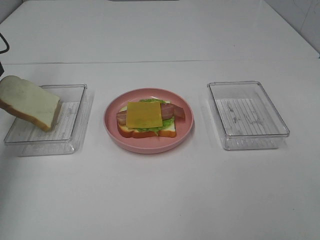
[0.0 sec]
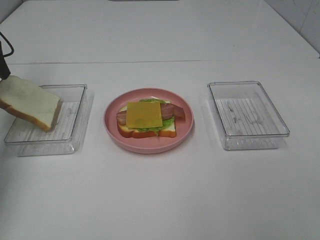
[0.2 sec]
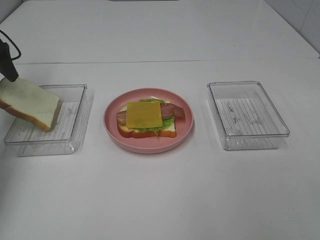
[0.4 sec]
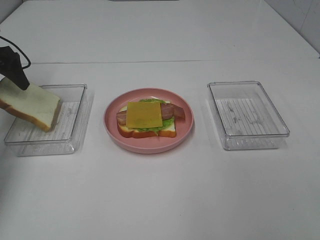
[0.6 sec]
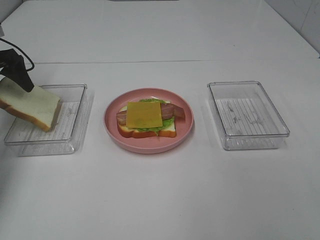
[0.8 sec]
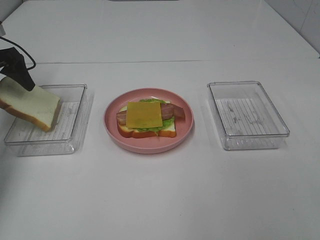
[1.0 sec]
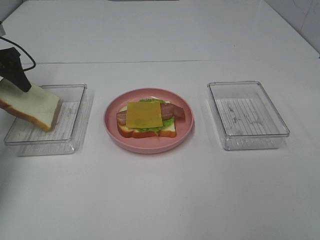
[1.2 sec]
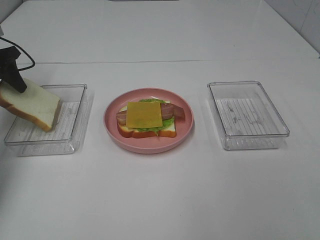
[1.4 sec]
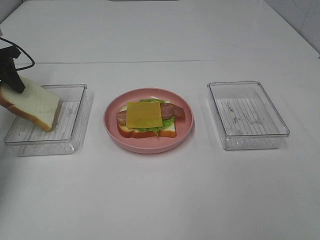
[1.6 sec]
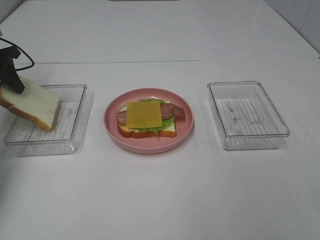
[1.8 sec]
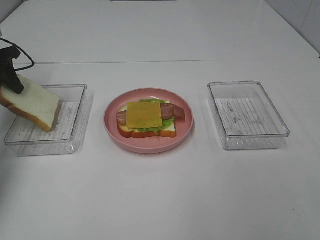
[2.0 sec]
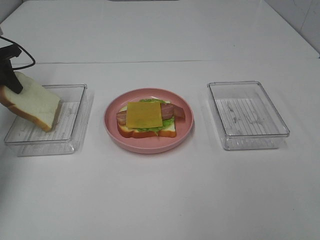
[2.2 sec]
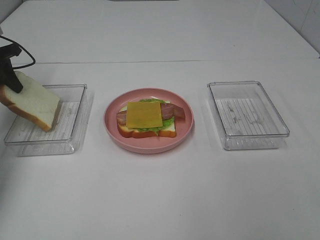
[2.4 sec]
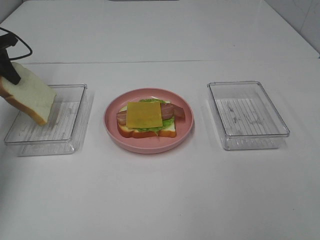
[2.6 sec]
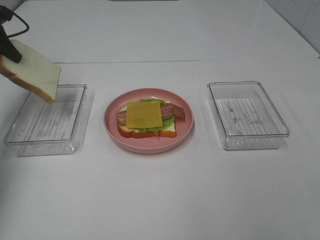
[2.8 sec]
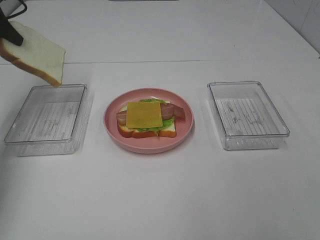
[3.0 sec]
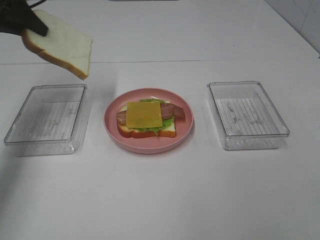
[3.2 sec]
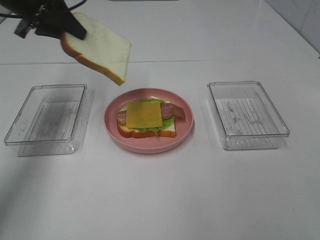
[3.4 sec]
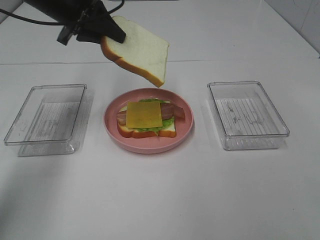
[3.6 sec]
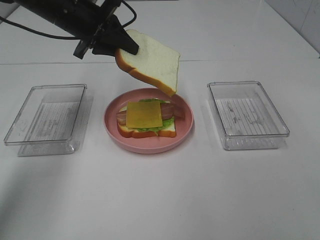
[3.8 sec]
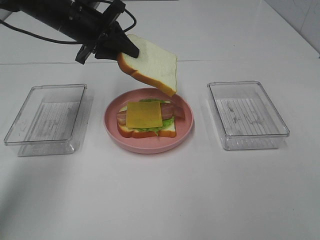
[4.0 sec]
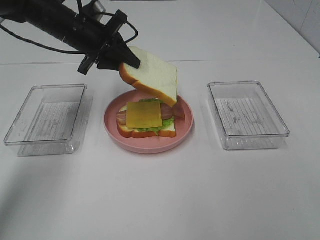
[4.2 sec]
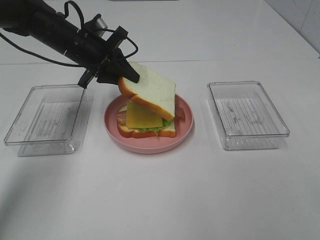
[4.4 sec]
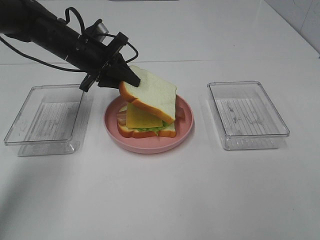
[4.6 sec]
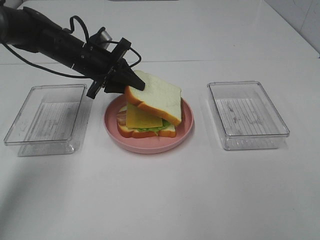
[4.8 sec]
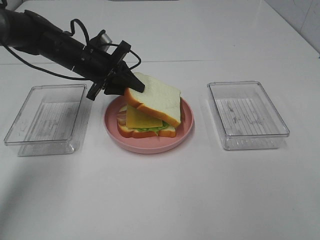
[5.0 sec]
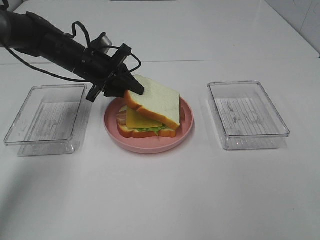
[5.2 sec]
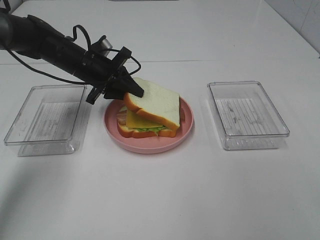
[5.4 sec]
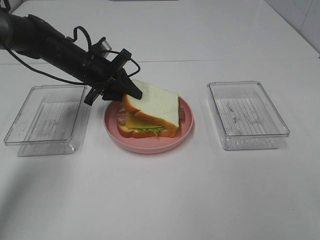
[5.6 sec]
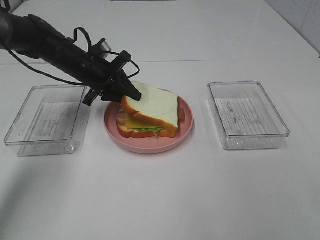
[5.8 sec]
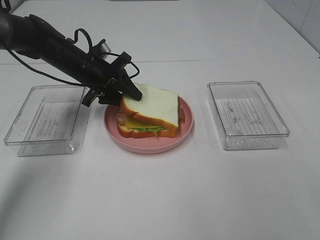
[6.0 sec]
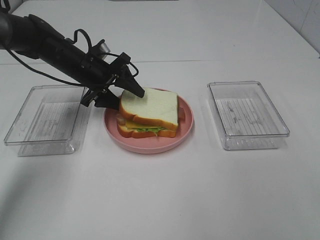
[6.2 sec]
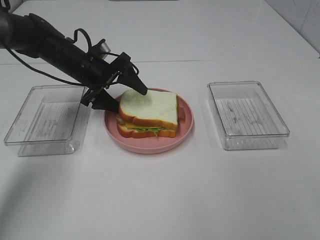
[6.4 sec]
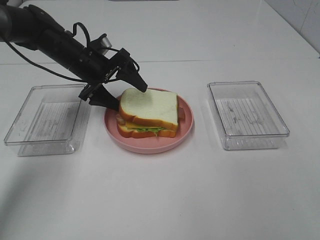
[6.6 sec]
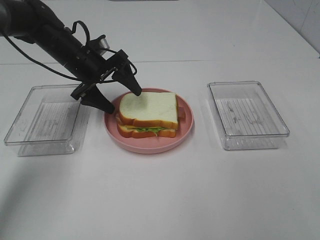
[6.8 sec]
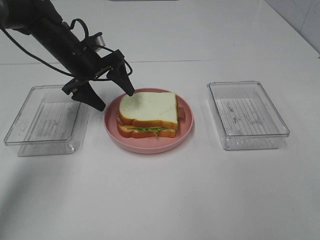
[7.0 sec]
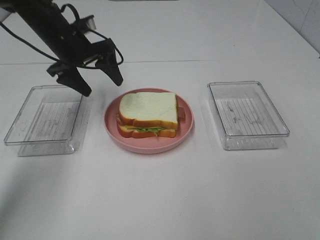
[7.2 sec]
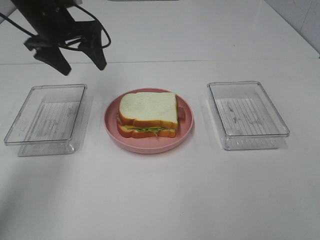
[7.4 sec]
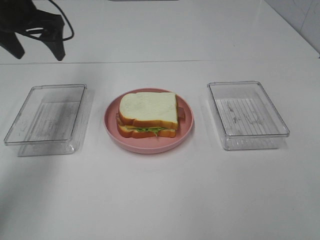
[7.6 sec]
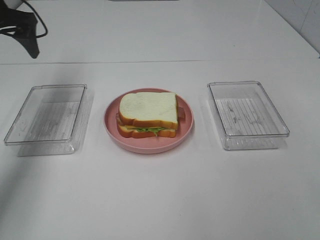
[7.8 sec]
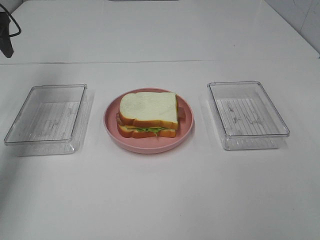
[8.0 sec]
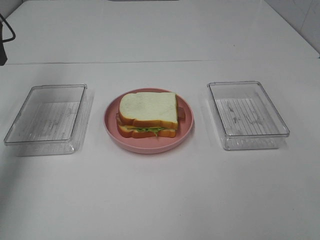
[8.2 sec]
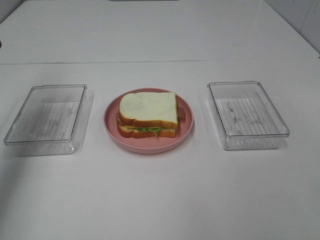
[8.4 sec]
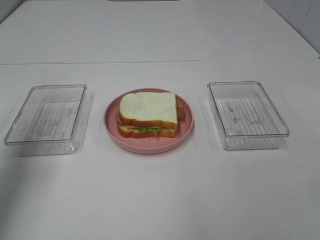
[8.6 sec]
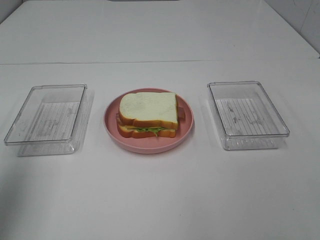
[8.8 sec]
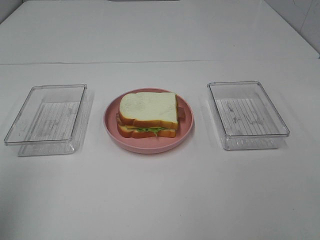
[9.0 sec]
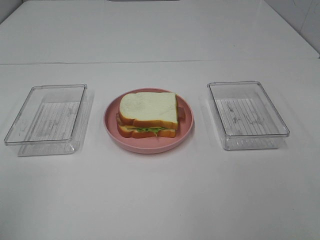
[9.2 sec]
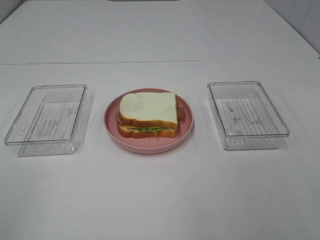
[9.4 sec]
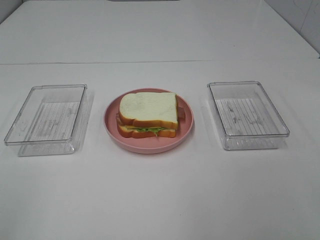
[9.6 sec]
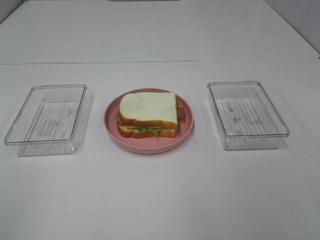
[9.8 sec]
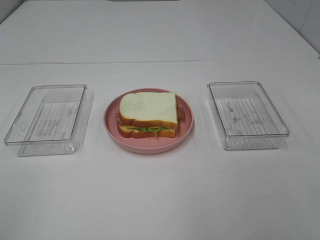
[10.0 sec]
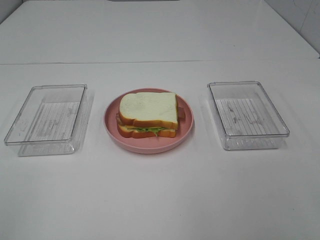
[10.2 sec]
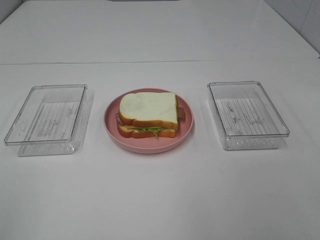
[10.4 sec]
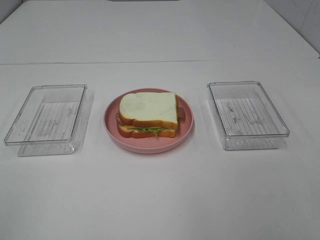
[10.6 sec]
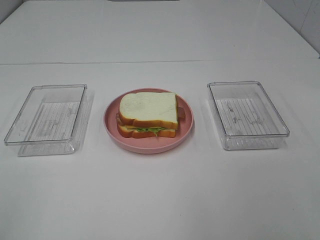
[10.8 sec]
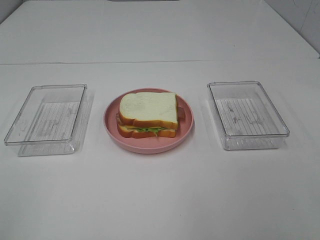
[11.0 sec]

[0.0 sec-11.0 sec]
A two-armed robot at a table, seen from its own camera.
Task of the whole recording: Make sandwiches.
Step, 1.8 sec to 7.0 sec: Left hand:place the bread slice on the cheese slice.
0.0 sec to 1.6 sec: The left gripper heads downward, covering some 10 cm, and closes its fingers.
1.6 sec to 3.2 sec: The left gripper goes about 15 cm upward and to the right.
3.2 sec to 4.8 sec: The left gripper moves to the right and downward, some 20 cm.
4.8 sec to 6.2 sec: The left gripper opens.
6.2 sec to 7.8 sec: The left gripper goes some 20 cm to the left and upward.
7.8 sec to 9.4 sec: The left gripper moves backward, roughly 40 cm.

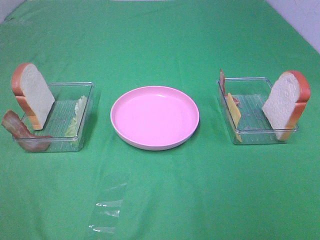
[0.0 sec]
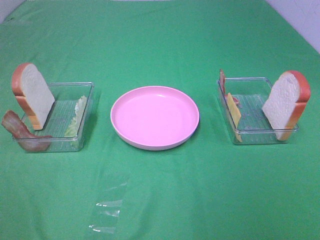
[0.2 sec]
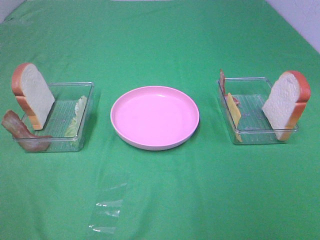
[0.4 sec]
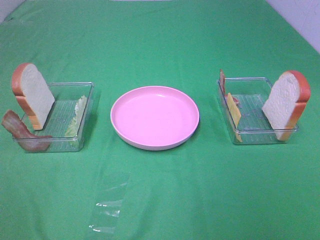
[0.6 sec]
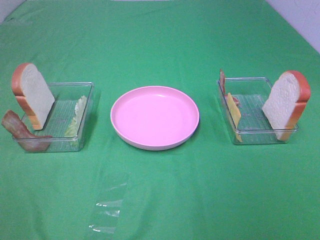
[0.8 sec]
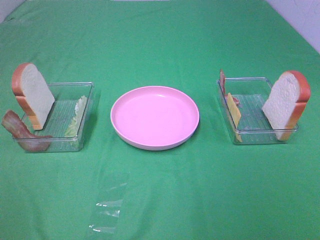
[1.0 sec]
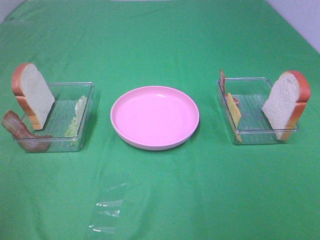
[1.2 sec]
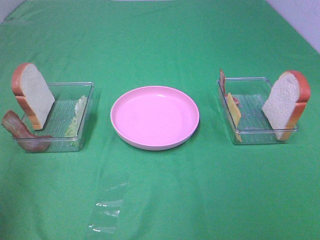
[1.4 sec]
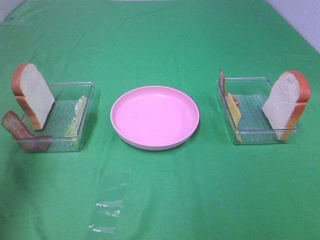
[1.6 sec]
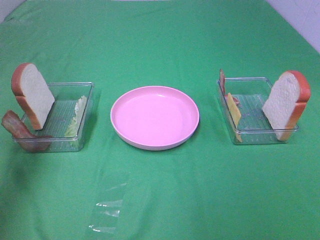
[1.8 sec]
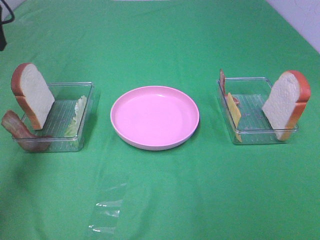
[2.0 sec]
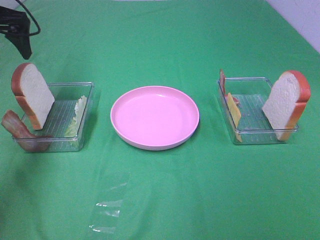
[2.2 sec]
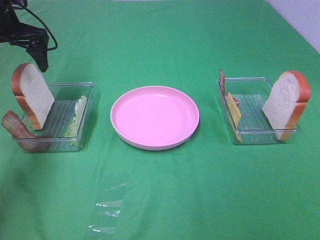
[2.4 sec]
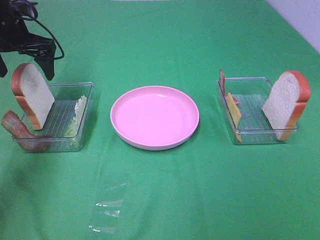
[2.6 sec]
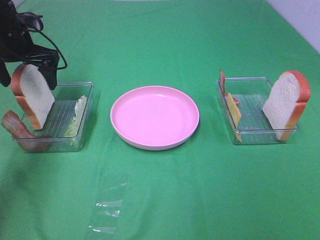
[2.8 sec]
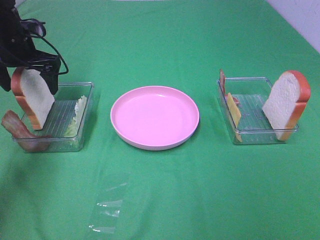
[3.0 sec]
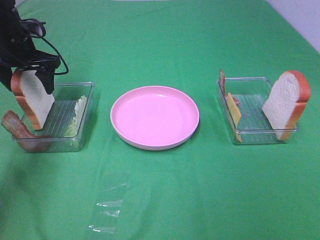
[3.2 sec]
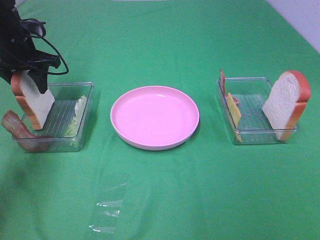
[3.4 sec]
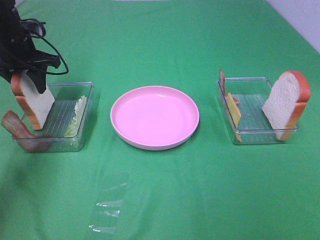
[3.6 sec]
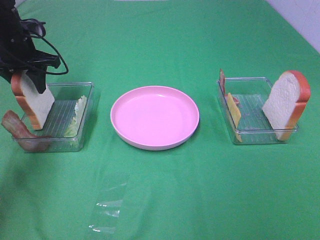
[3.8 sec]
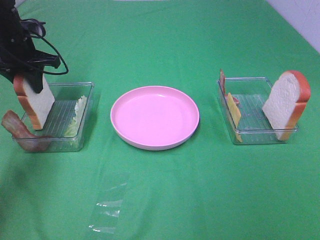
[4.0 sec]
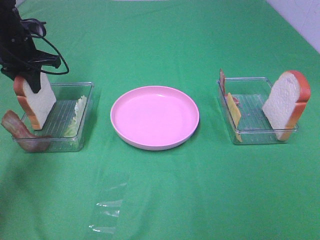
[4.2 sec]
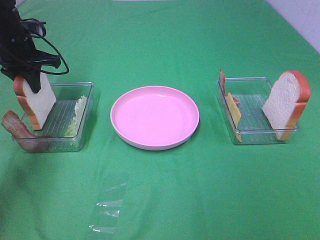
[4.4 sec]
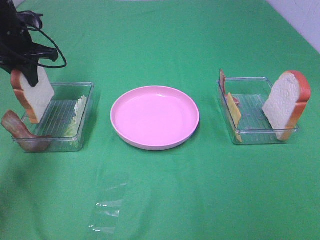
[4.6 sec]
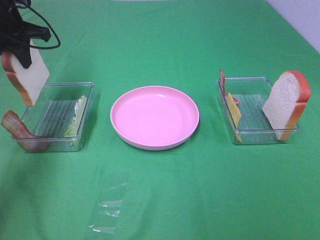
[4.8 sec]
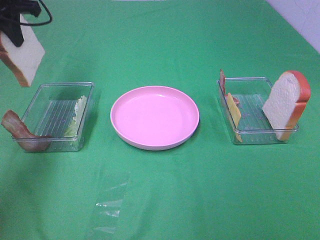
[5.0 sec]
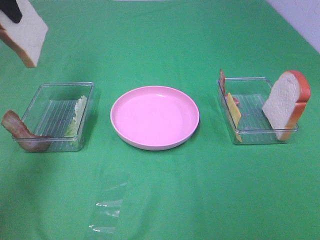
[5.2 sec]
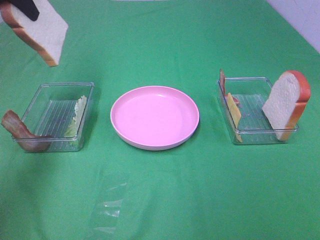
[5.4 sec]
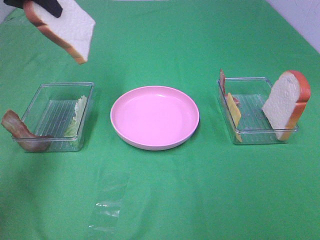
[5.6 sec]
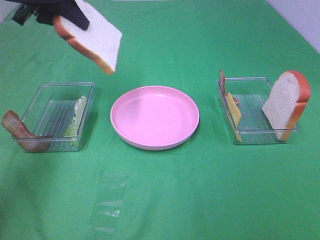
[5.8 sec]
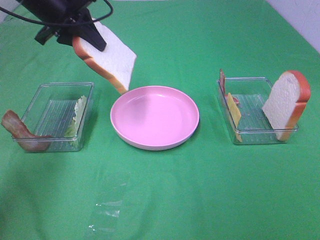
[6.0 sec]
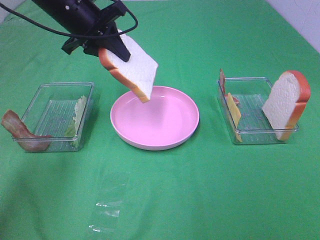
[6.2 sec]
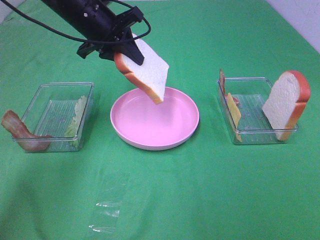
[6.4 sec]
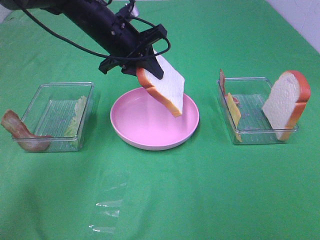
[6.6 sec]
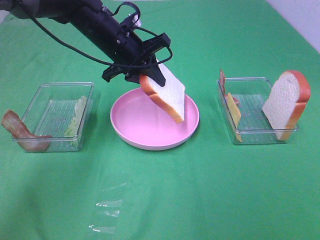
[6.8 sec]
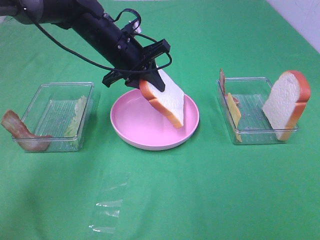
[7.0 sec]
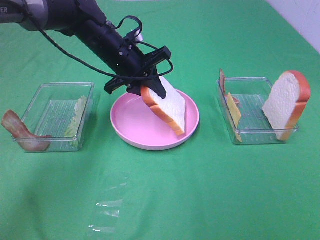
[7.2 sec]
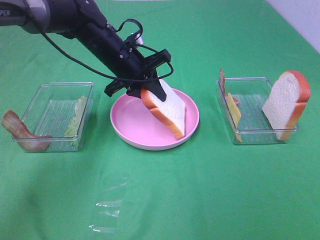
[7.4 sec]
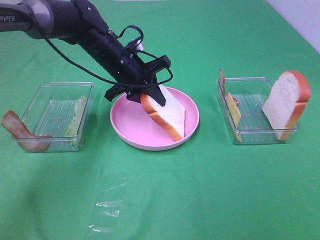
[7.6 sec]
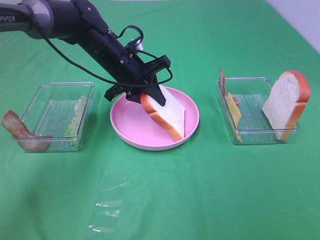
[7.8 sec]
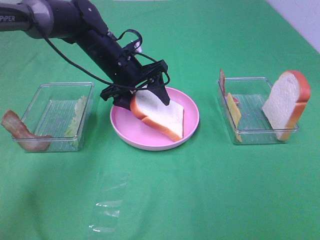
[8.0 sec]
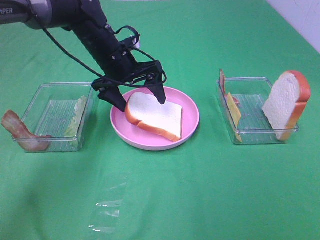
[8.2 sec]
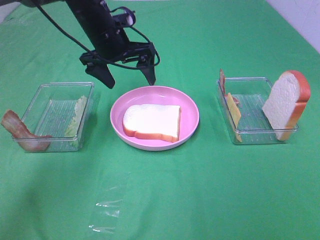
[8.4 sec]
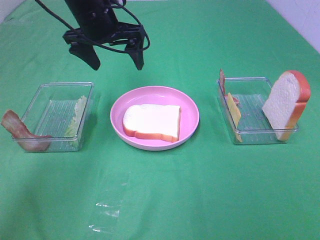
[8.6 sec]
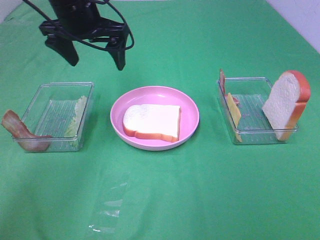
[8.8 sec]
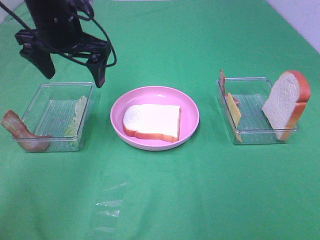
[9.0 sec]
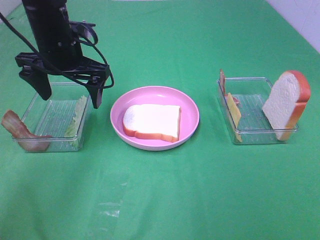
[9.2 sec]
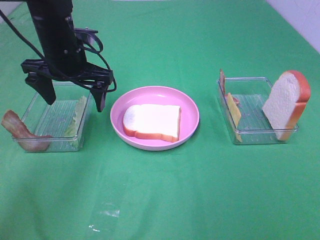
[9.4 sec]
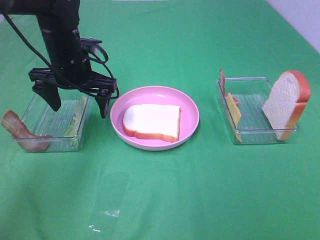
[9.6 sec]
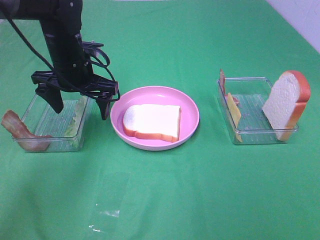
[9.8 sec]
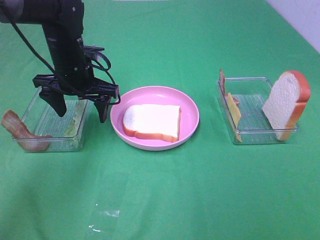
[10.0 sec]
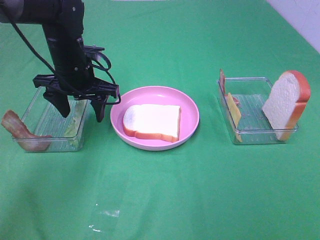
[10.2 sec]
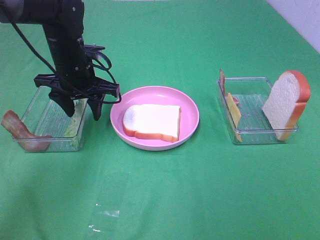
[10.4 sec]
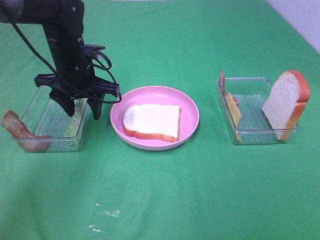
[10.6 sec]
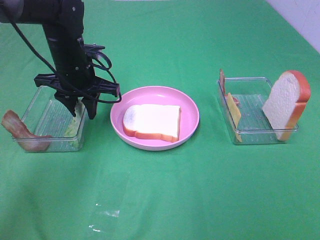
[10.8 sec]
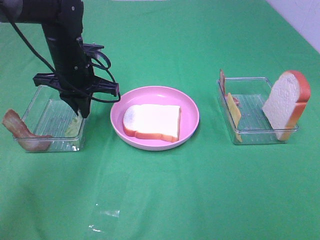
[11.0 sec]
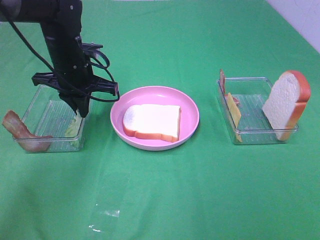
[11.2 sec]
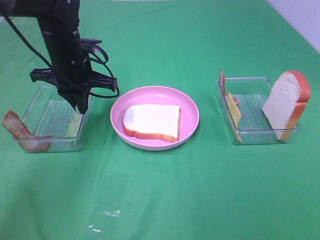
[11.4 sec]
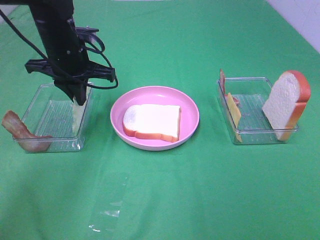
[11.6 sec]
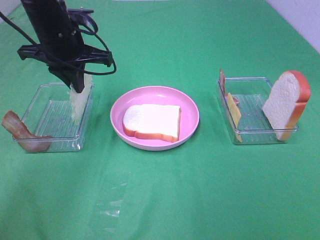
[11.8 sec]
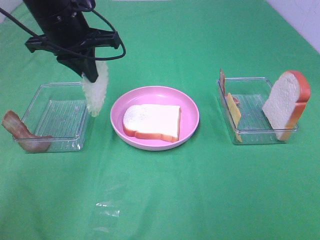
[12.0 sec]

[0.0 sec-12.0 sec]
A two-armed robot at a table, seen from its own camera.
Task of the whole recording: Make sandwiches.
Step, 0.0 sec to 4.2 sec: Left hand:grab the bread slice.
Step, 4.4 sec to 8.2 sec: Left hand:place the bread slice on the plate.
Step, 8.4 sec to 11.2 sec: Left hand:grab the lettuce slice.
0.0 sec to 1.6 sec: The left gripper shifts about 25 cm forward.
1.6 sec to 3.0 sec: The left gripper travels forward and downward by roughly 30 cm.
3.0 sec to 4.4 sec: The left gripper closes.
4.4 sec to 6.0 sec: The left gripper is displaced to the right and upward by approximately 10 cm.
6.0 sec to 7.6 sec: The left gripper shifts about 15 cm downward and to the right.
7.6 sec to 9.0 sec: The left gripper shifts some 15 cm upward and to the left, and opens its fingers.
9.0 sec to 10.4 sec: The left gripper travels downward by roughly 10 cm, and closes its fingers.
10.4 sec to 12.0 sec: The left gripper goes some 10 cm upward, and closes its fingers.
